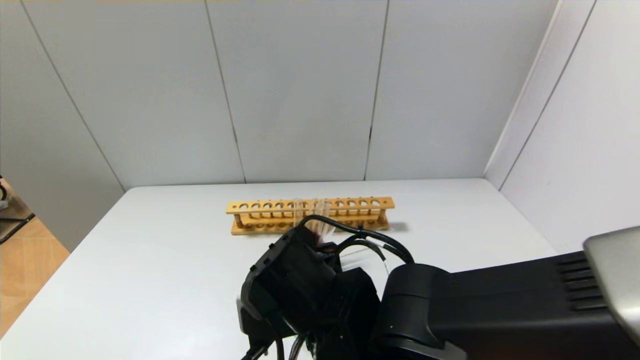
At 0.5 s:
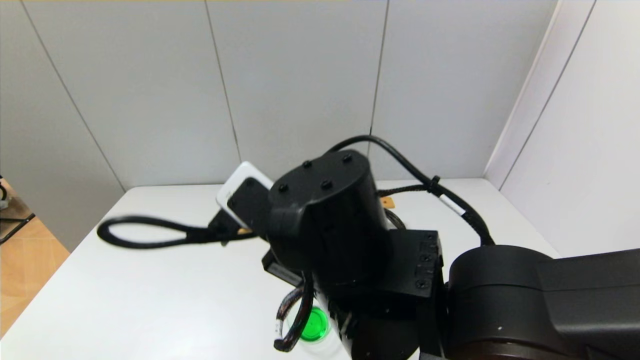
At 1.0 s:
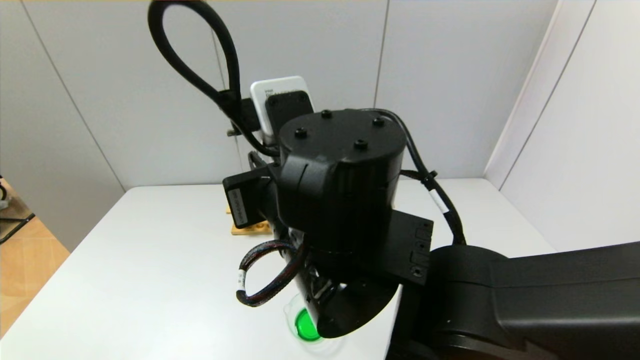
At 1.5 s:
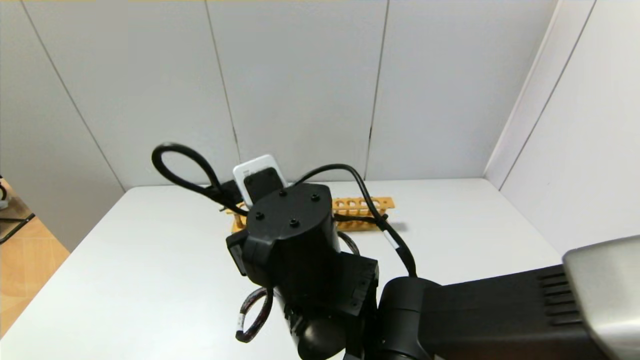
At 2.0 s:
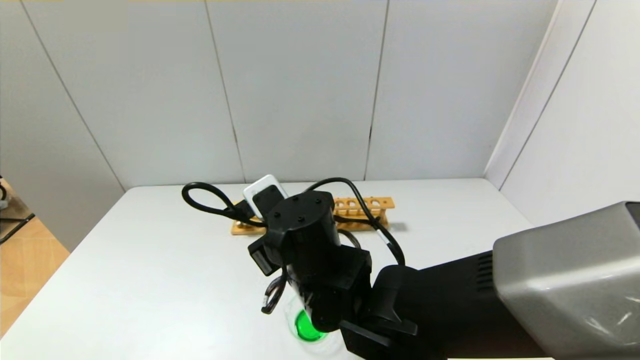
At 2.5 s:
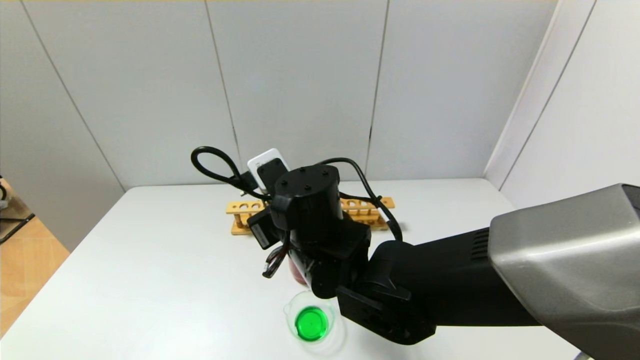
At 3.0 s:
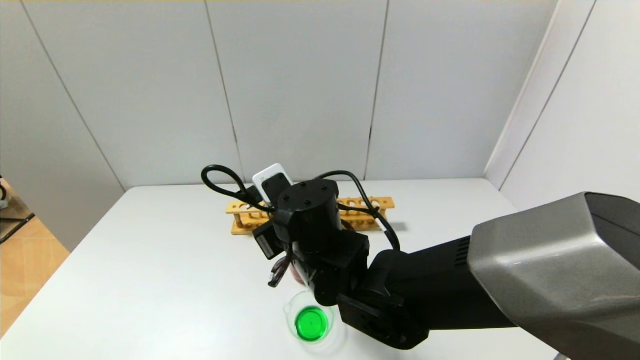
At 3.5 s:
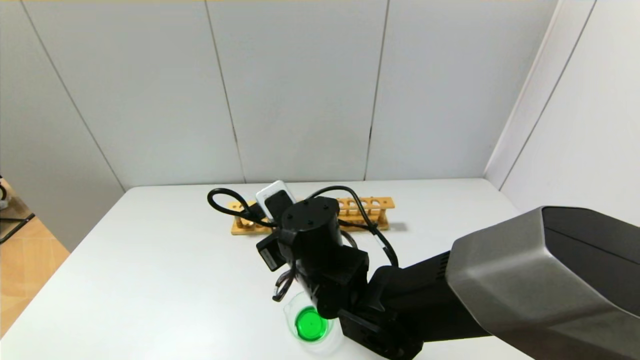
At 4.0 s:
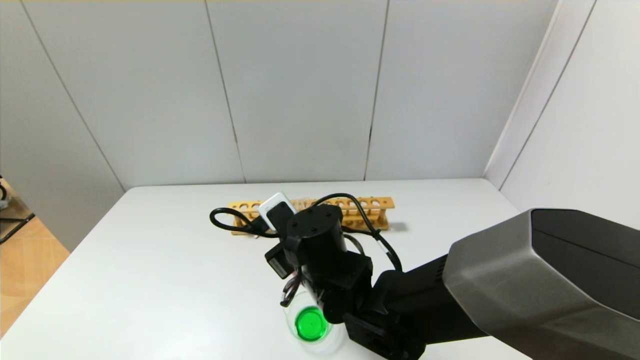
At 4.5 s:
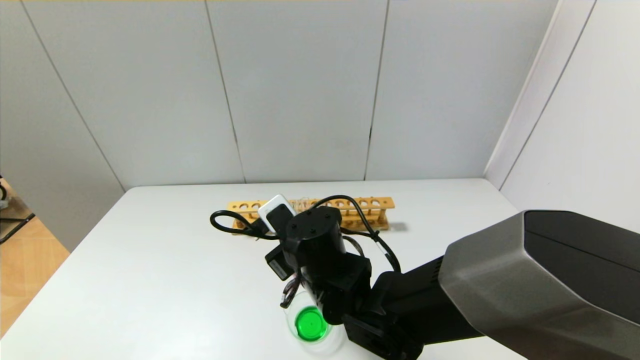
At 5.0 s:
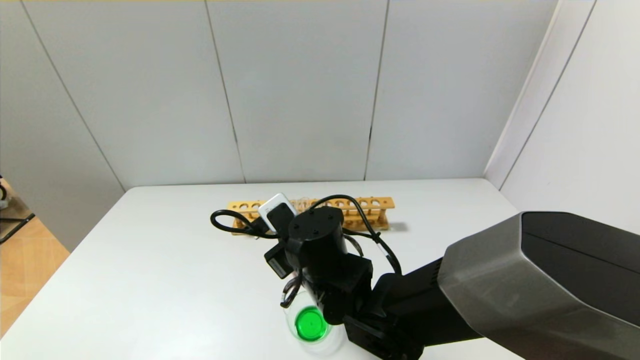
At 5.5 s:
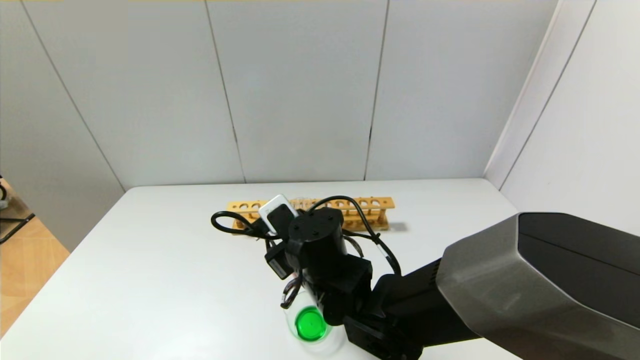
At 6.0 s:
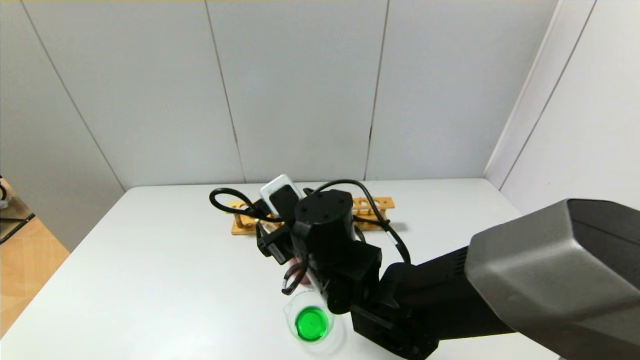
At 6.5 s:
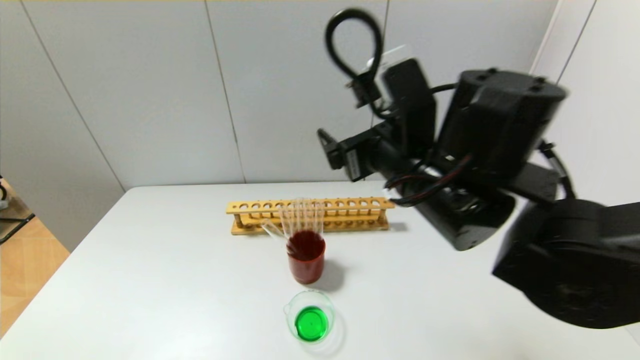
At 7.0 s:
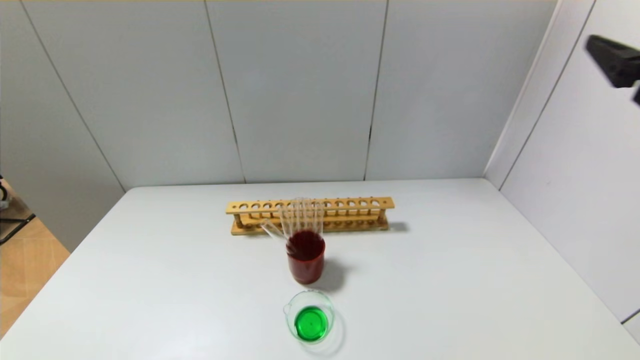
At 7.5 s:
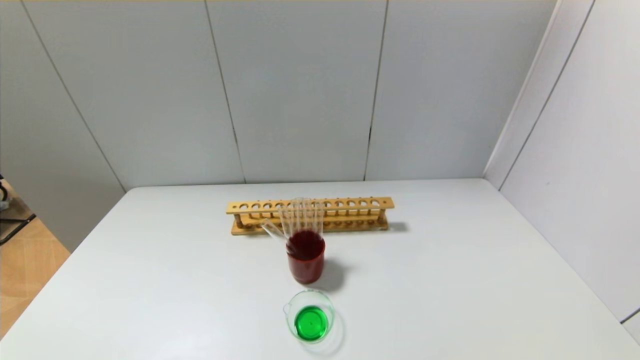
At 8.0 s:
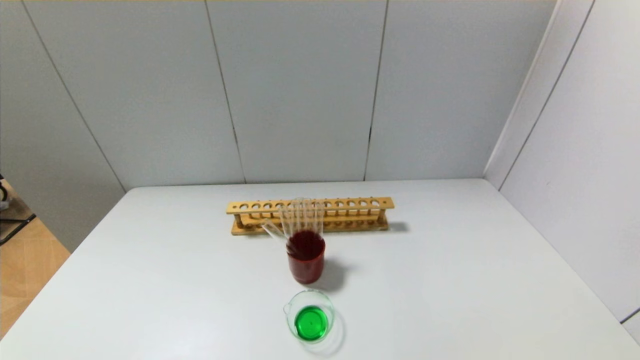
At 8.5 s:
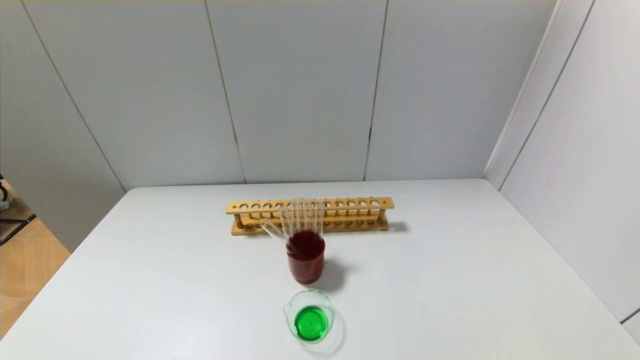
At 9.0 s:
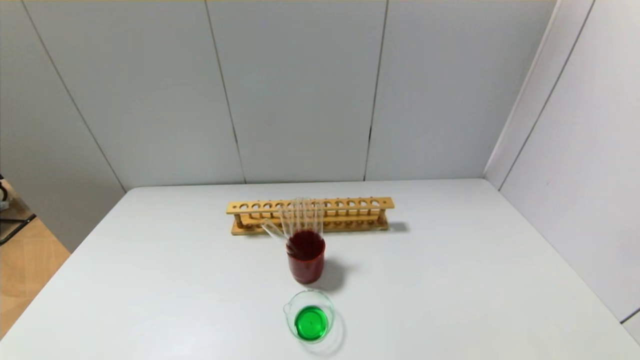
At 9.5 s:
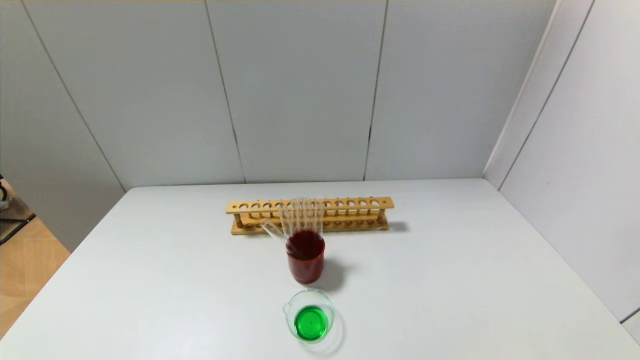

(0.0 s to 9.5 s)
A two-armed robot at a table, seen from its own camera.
Step, 0.0 s - 5.5 s: Place the test tube into the brown cup with the right gripper.
0.0 s - 2.0 s: The right gripper travels upward and back again, some 10 cm each way.
2.0 s - 4.0 s: The right gripper ends up approximately 5 cm from where it was.
4.0 s - 5.5 s: The right gripper opens.
5.5 s - 7.5 s: The right gripper shifts about 50 cm to the right, backward and upward, and opens its fingers.
